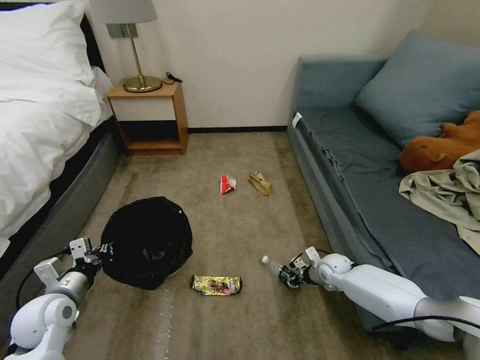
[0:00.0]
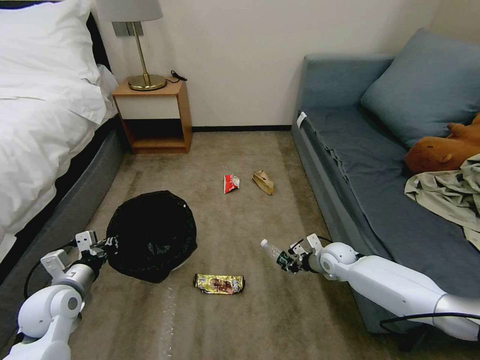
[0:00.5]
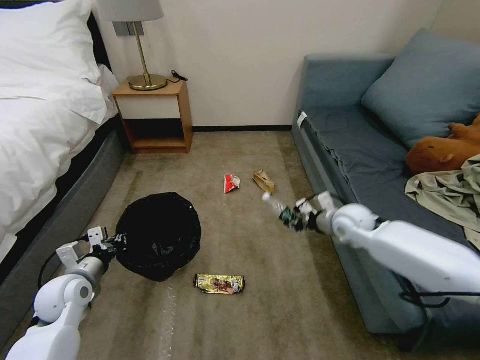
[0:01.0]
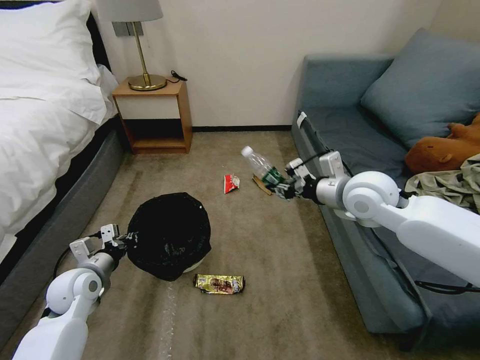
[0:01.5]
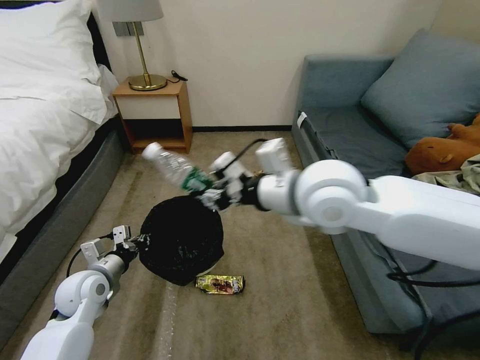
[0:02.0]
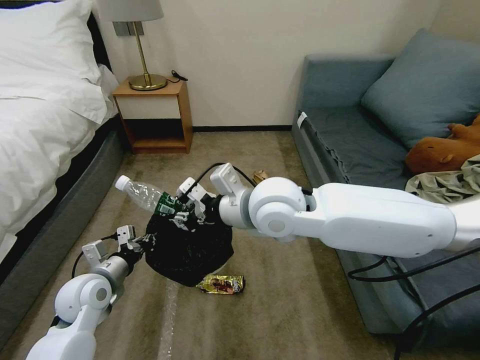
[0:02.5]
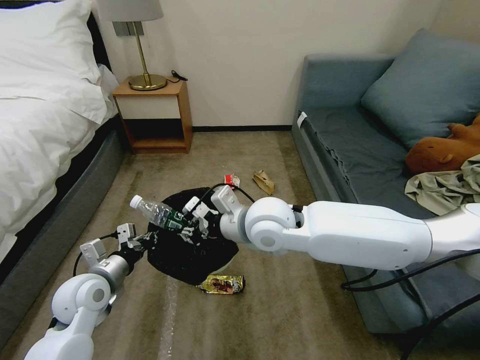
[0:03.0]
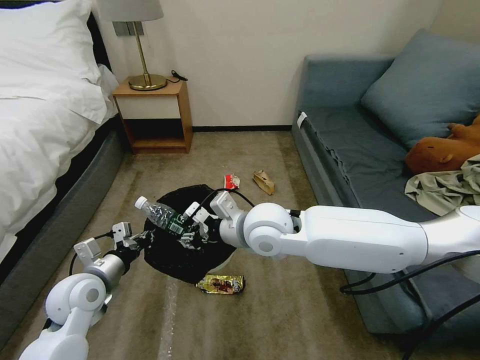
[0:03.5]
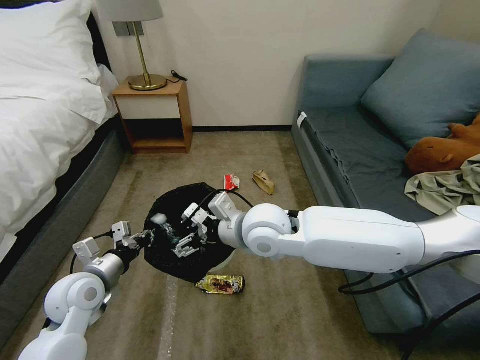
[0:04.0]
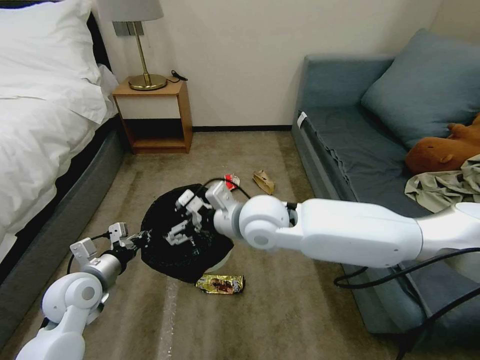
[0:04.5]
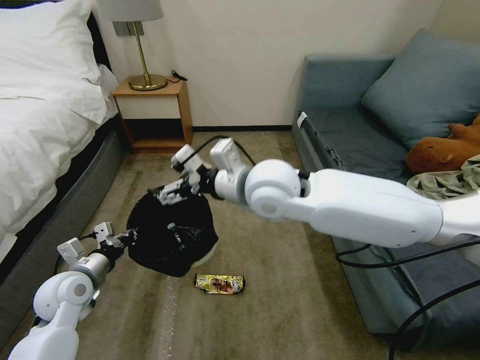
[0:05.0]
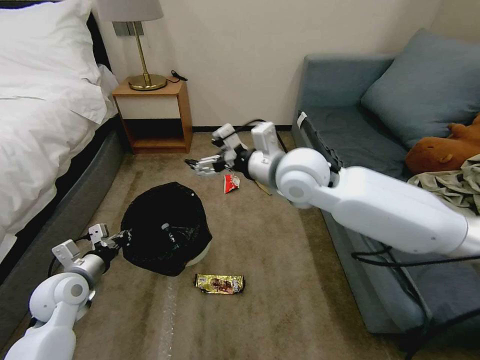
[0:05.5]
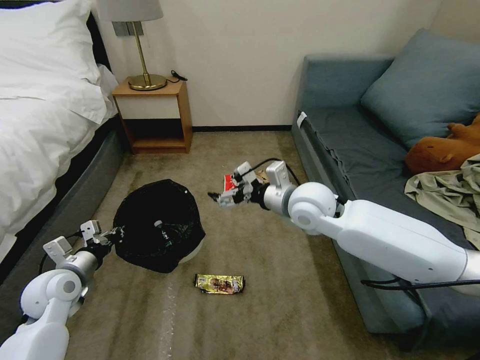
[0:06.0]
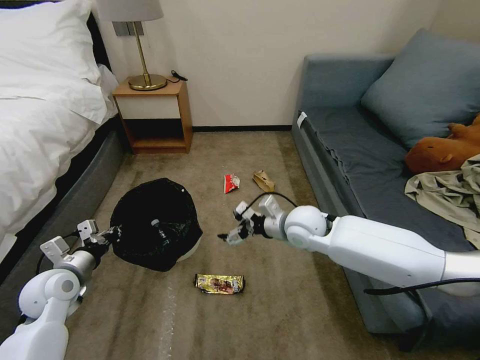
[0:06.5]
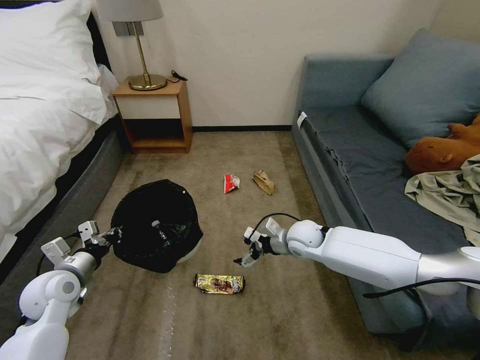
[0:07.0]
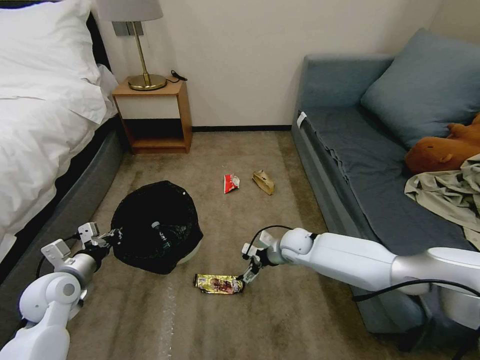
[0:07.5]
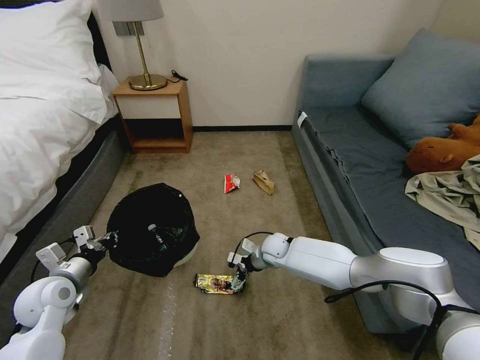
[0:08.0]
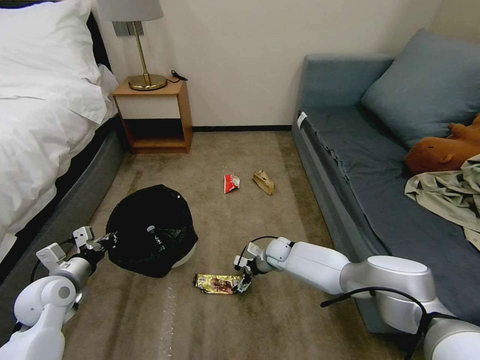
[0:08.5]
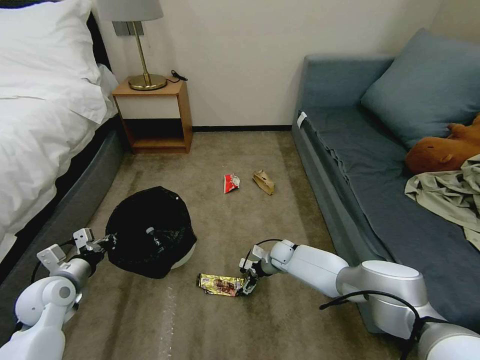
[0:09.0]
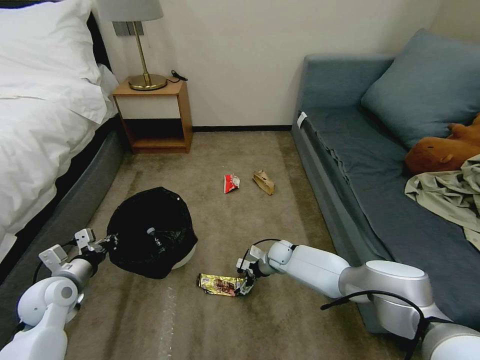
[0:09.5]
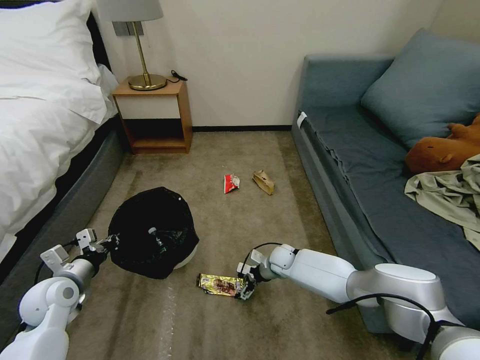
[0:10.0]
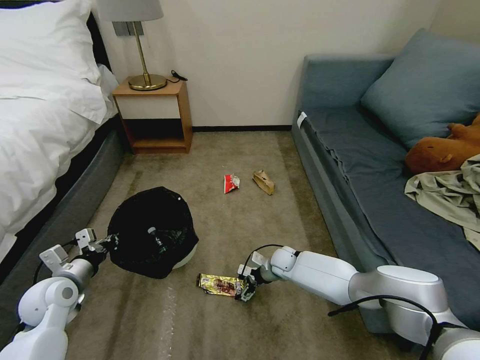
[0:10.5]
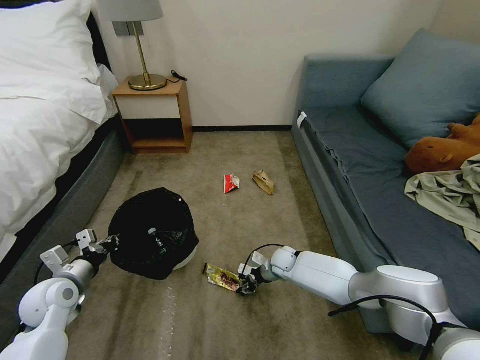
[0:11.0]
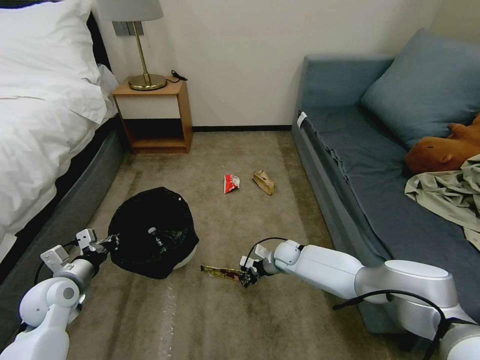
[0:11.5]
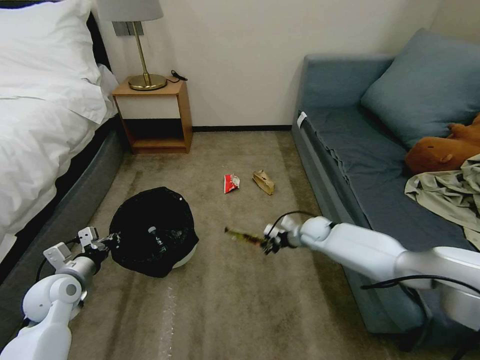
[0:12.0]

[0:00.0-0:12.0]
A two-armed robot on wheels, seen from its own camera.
Task of the whole recording: Pick up the trash bin, then pick up the garbage on the floor and place it into the trash bin.
0:00.0 to 0:02.0: The left gripper goes some 5 cm forward. The right gripper shifts about 50 cm upward and to the left.
0:02.0 to 0:04.0: The right gripper travels downward and to the left by roughly 15 cm, and opens up.
0:04.0 to 0:06.0: The left gripper goes roughly 5 cm to the left; the right gripper shifts about 10 cm to the right and forward.
0:06.0 to 0:08.0: The right gripper goes approximately 25 cm downward.
0:08.0 to 0:10.0: The right gripper goes about 5 cm downward.
0:10.0 to 0:12.0: The right gripper is displaced upward and to the right by about 10 cm, and closes up.

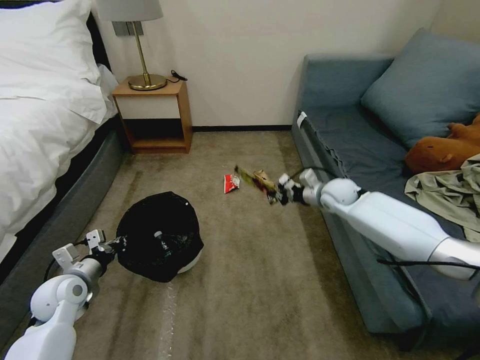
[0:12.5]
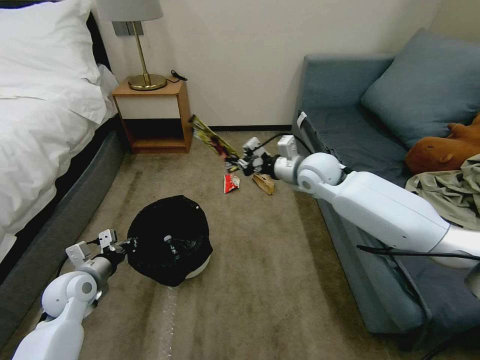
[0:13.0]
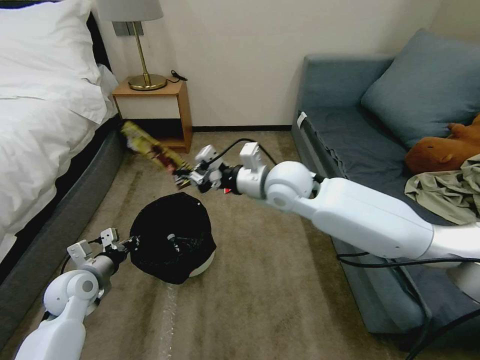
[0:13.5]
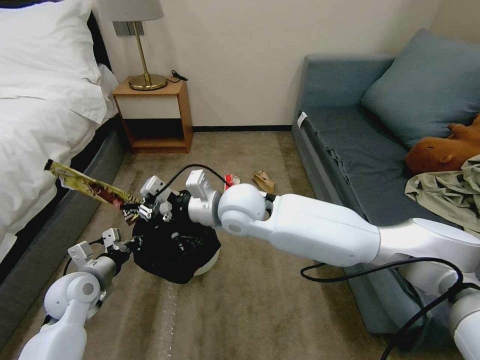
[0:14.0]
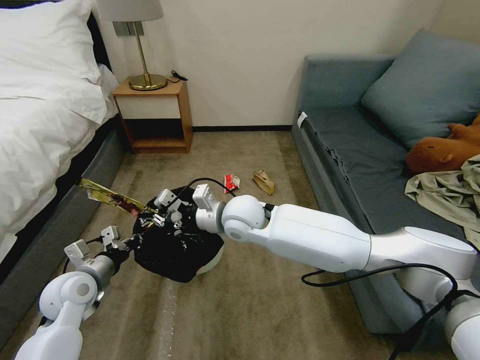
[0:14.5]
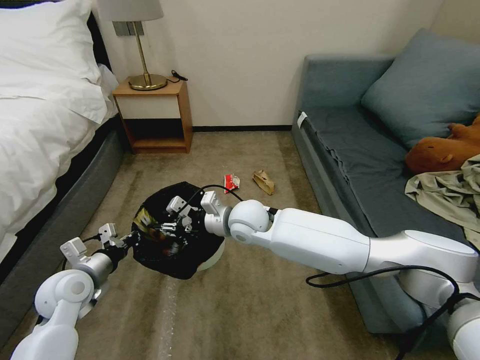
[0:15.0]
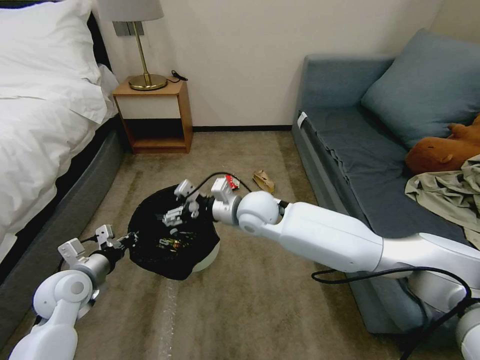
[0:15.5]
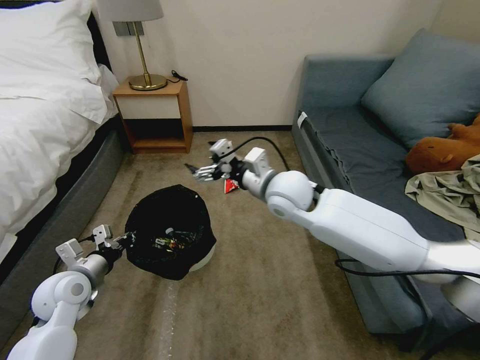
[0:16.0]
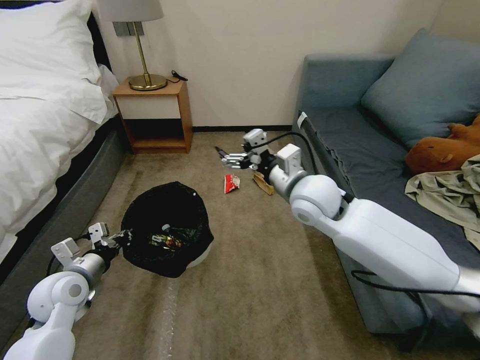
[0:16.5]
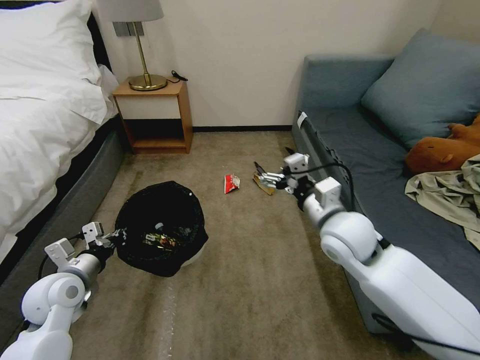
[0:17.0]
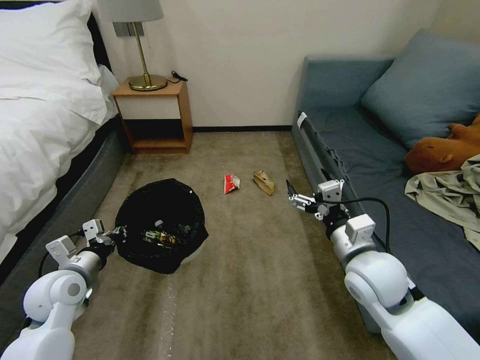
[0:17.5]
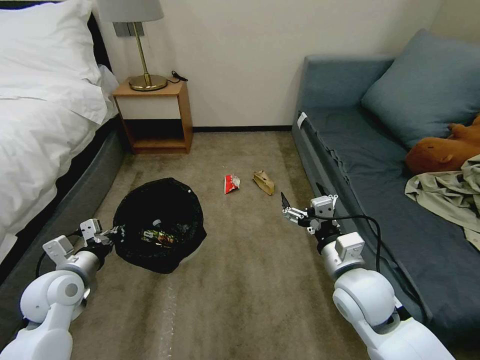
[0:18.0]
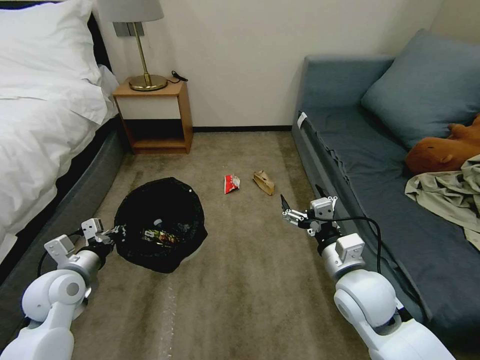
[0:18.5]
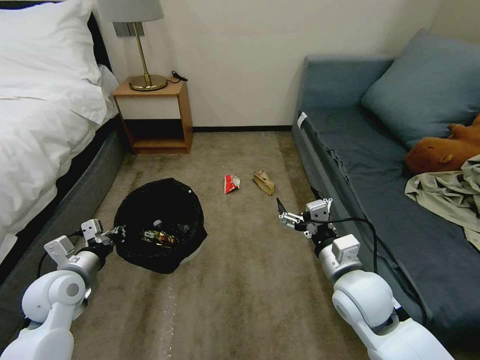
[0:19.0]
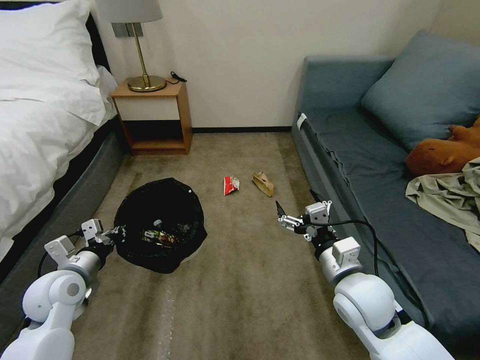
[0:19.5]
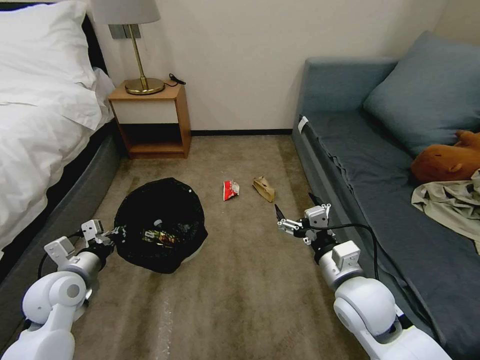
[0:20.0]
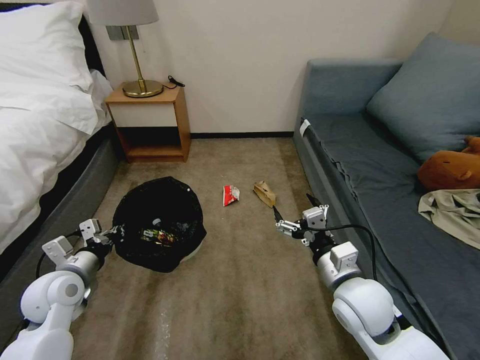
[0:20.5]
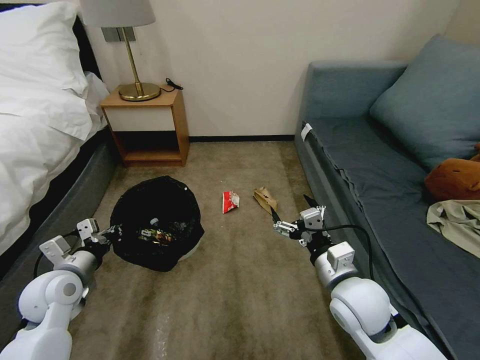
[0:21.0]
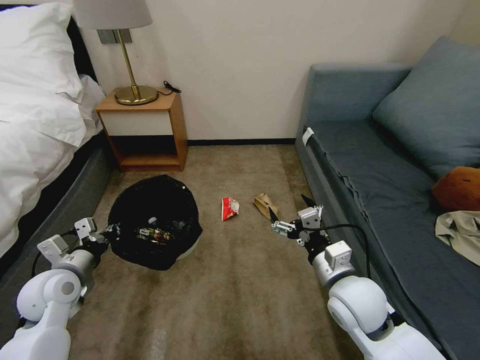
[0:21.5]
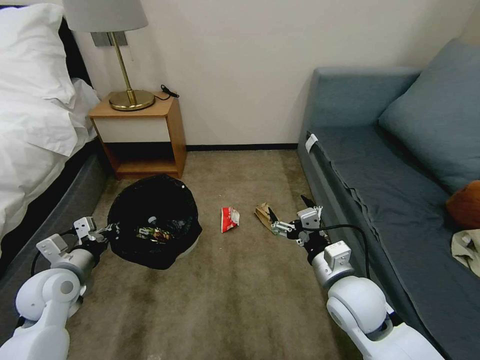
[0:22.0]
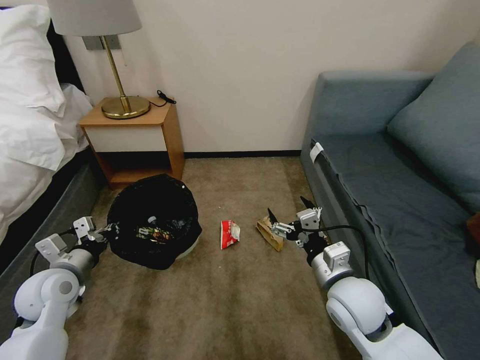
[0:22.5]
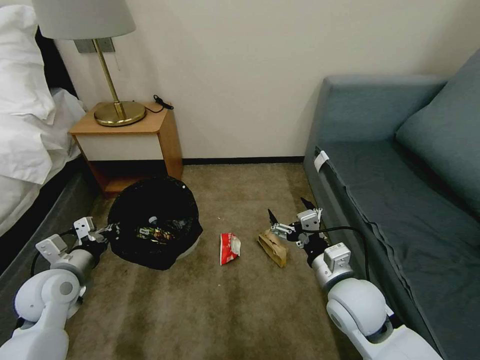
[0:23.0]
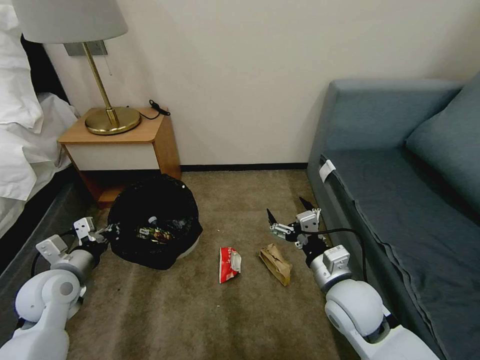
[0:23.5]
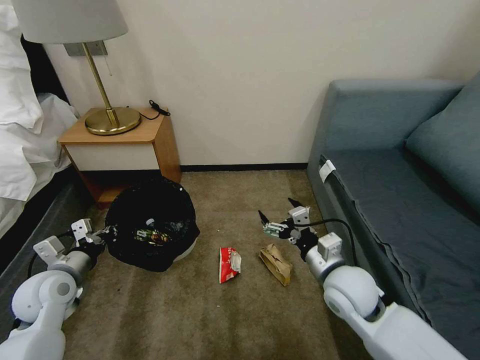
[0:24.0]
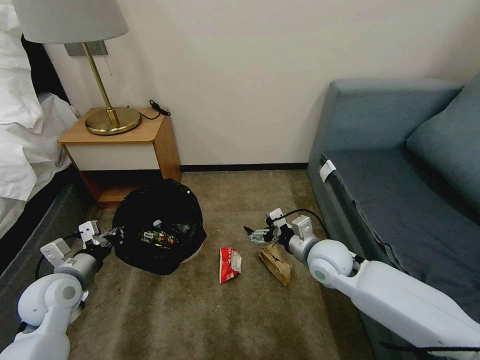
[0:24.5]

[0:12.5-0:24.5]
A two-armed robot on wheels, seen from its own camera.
Task of the whole recording: Pick up the trash bin, then pick up the garbage on the floor and place it into the trash bin.
0:12.5 to 0:14.5: The right gripper heads to the left and backward, covering approximately 30 cm.
0:14.5 to 0:16.5: The right gripper travels to the right and upward by approximately 15 cm, and opens.
0:16.5 to 0:18.5: The right gripper travels backward, downward and to the right by about 20 cm.
0:18.5 to 0:20.5: The grippers make only small movements.
0:22.5 to 0:24.5: The right gripper travels forward by roughly 10 cm.

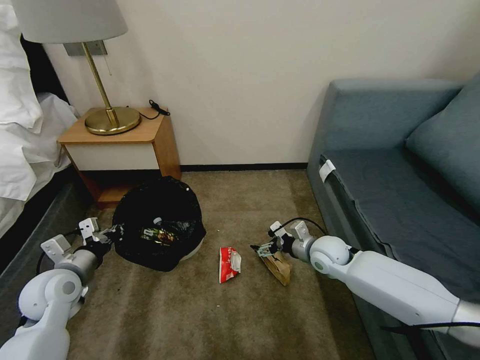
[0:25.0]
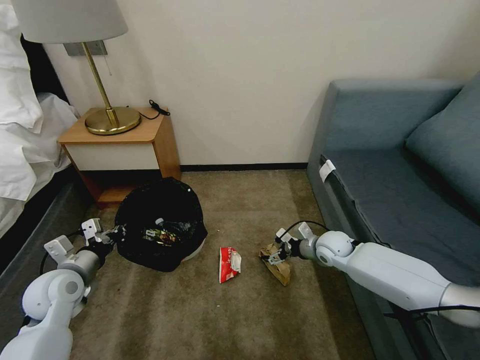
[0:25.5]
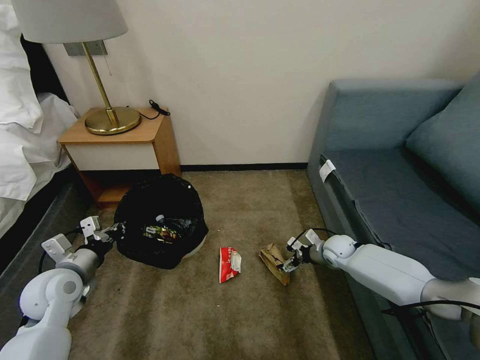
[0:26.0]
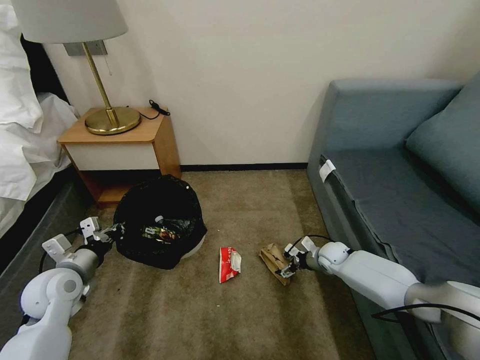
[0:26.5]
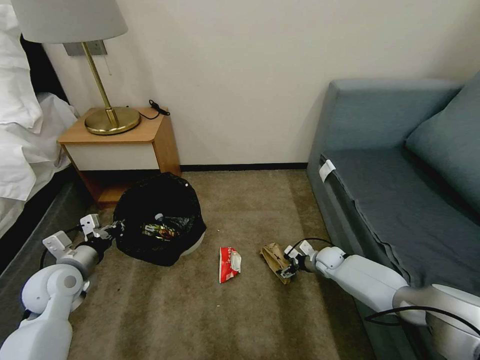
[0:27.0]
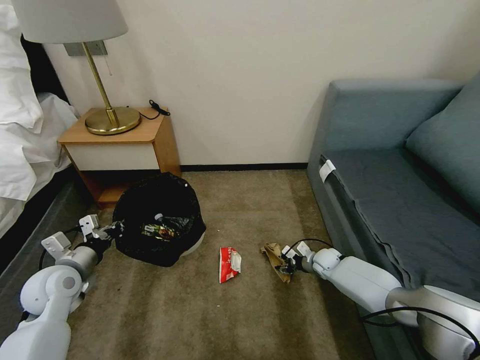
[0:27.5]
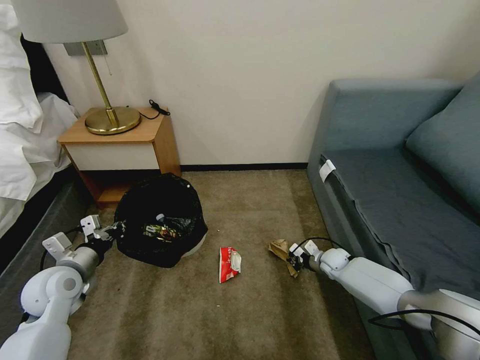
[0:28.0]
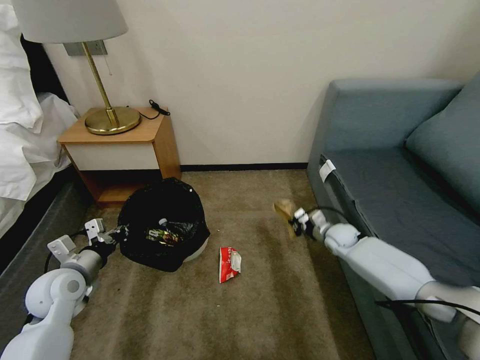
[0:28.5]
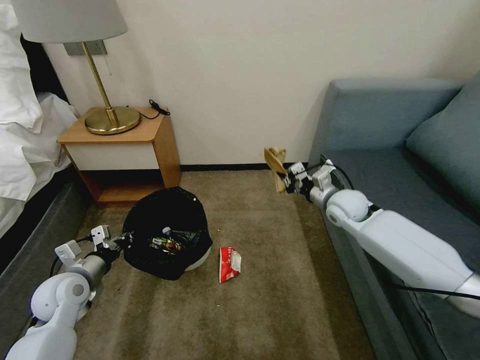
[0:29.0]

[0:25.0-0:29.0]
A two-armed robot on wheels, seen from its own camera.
Task of the whole recording: Pick up the trash bin, then pick up the garbage on the floor and place it into the trash bin.
0:25.0 to 0:27.0: The right gripper heads downward and to the right, covering some 15 cm.
0:27.0 to 0:29.0: The right gripper travels upward by roughly 20 cm, and closes up.
